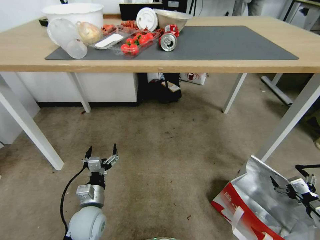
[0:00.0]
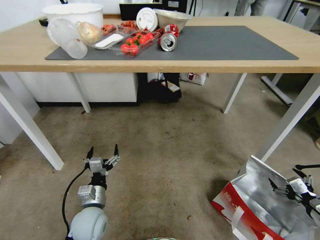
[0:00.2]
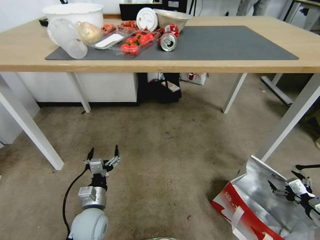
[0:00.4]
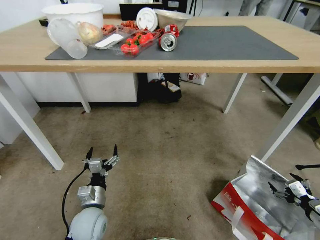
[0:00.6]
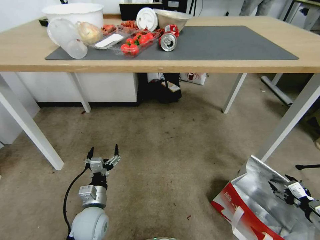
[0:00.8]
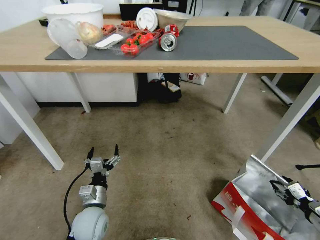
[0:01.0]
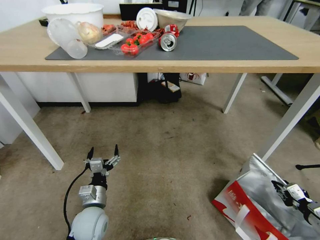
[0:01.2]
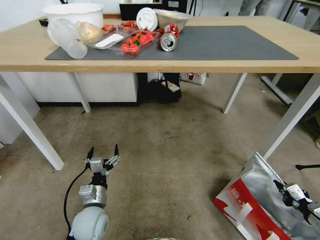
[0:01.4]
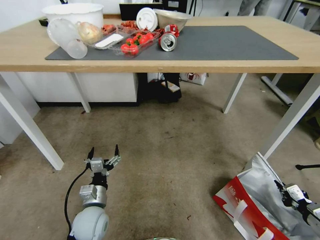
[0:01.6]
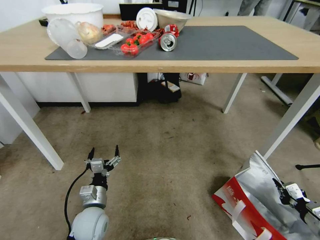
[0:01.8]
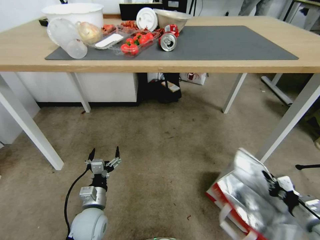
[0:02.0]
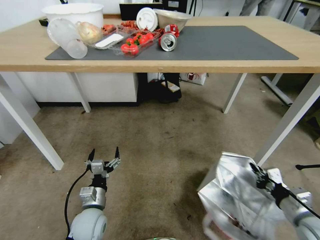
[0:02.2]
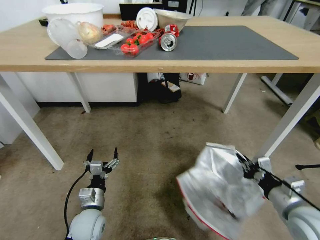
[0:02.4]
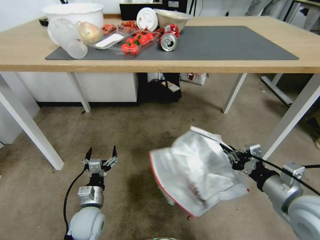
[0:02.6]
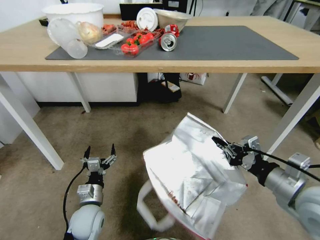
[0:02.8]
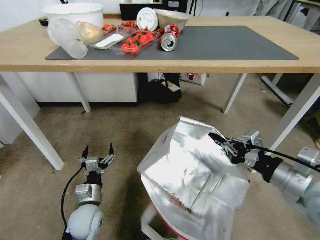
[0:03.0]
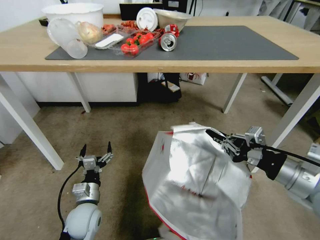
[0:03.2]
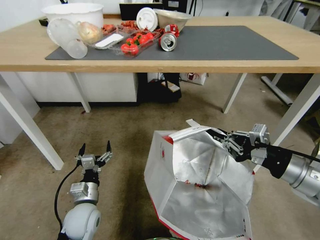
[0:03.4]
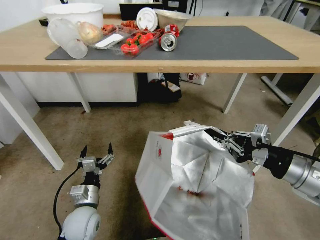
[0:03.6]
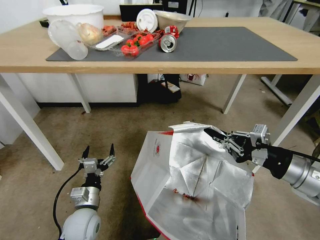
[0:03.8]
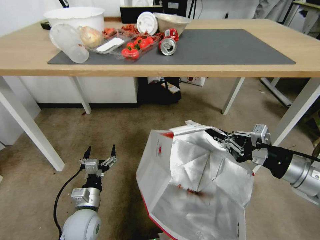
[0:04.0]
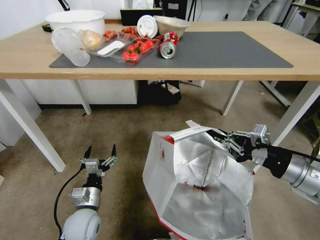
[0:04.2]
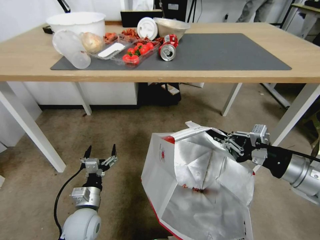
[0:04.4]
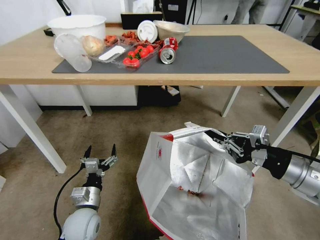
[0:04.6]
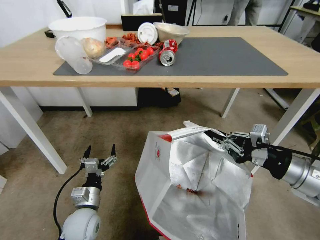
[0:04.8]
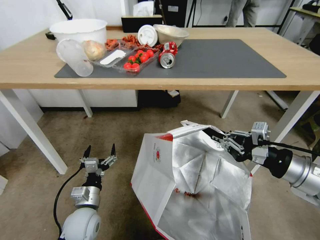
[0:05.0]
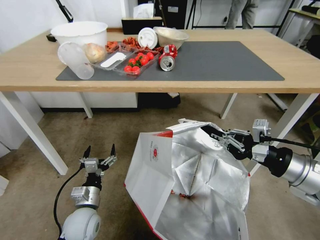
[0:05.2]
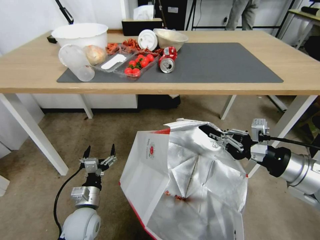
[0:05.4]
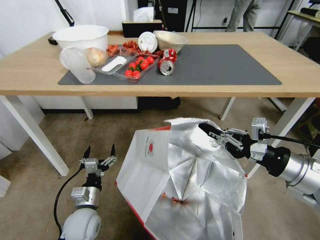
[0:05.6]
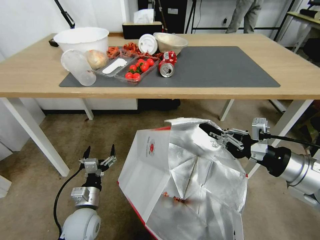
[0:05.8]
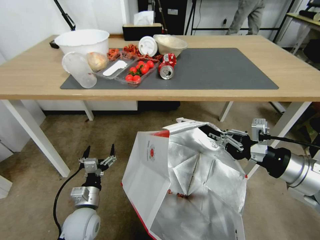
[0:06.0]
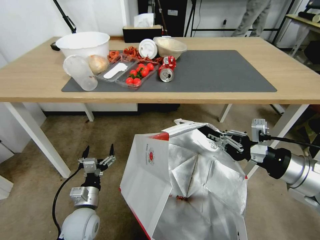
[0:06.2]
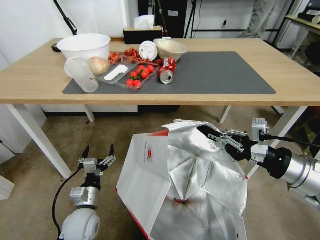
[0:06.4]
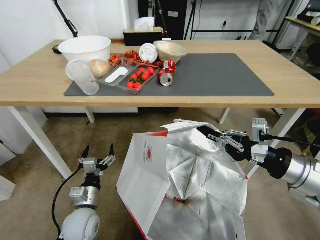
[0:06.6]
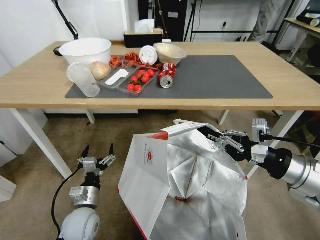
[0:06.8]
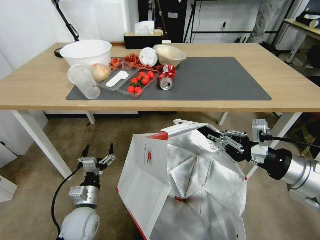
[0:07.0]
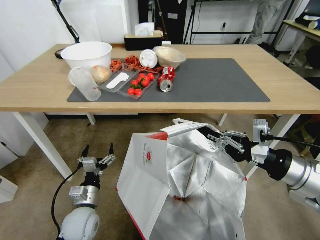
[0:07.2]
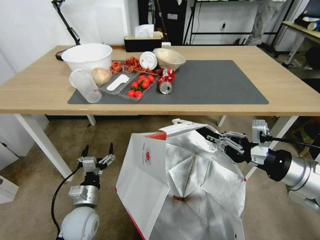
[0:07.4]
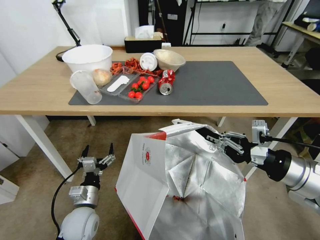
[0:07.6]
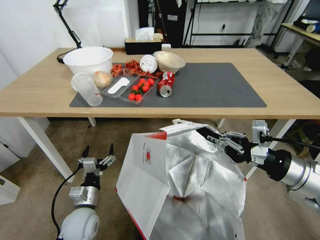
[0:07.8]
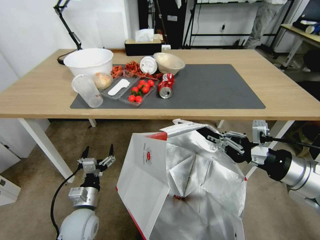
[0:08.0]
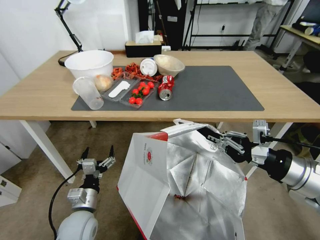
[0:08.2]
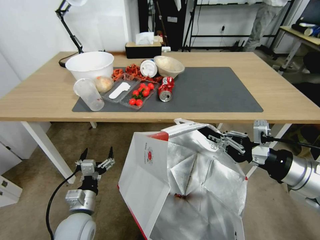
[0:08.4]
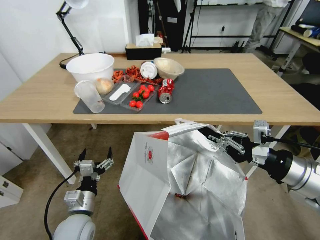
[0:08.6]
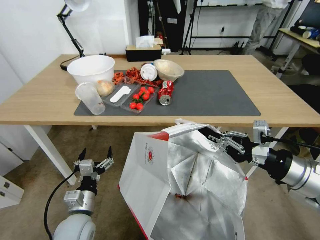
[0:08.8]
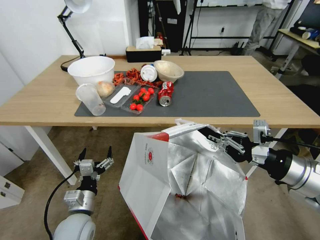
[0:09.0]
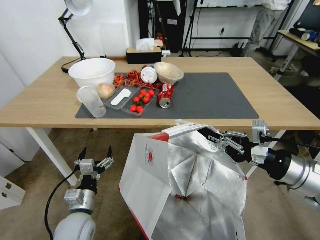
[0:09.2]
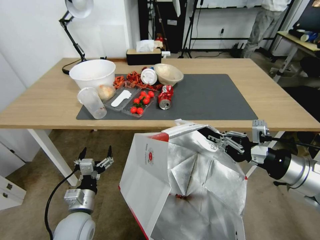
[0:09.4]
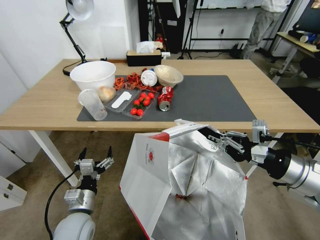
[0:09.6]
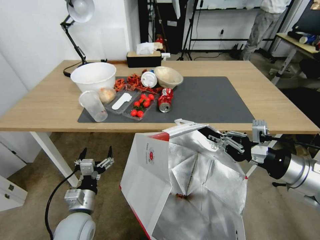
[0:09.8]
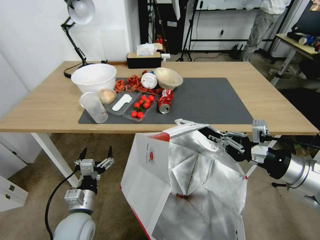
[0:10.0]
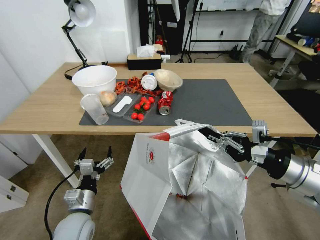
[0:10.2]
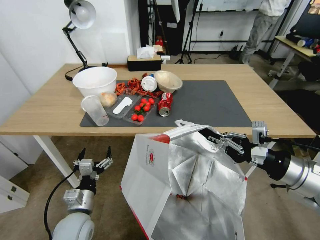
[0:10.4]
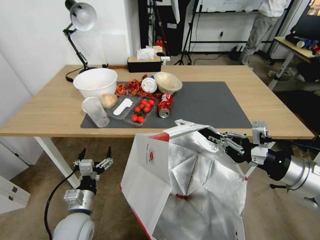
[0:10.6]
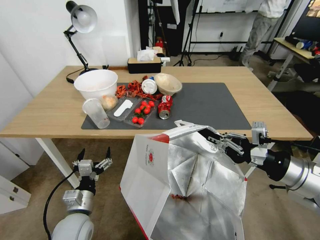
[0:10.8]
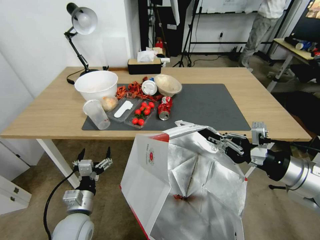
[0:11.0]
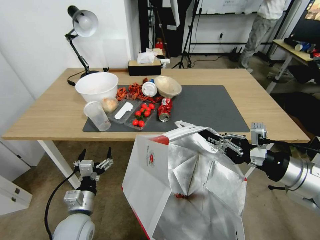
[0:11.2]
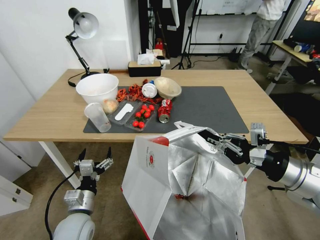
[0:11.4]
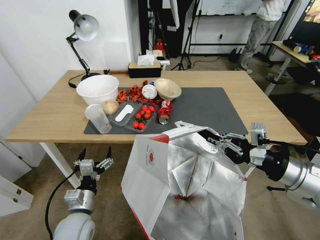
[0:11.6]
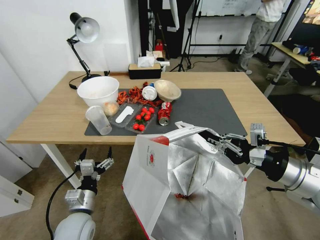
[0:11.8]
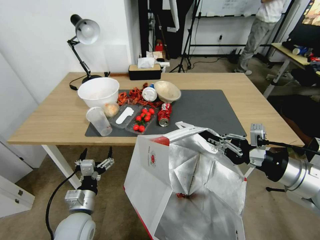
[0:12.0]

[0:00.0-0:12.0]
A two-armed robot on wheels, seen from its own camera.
Task of the whole recording: Pick up the food delivery bag from the floor and place it on the table.
0:00.0 to 0:01.6: The right gripper closes up.
0:01.6 to 0:03.0: The right gripper goes roughly 30 cm upward and to the left.

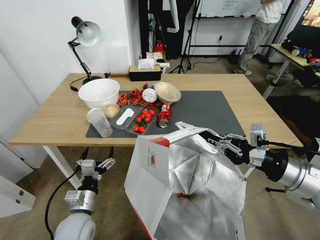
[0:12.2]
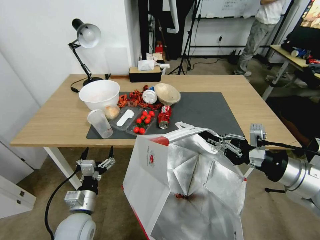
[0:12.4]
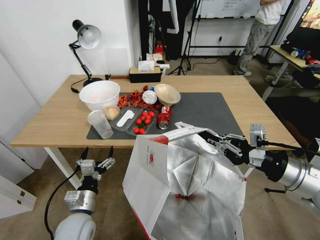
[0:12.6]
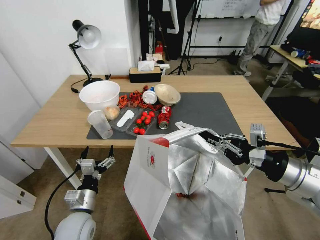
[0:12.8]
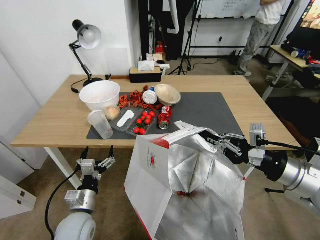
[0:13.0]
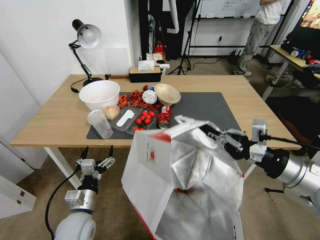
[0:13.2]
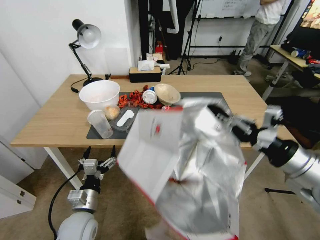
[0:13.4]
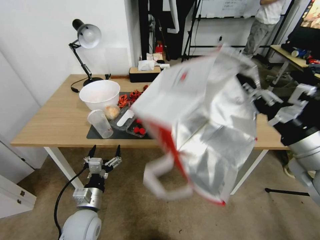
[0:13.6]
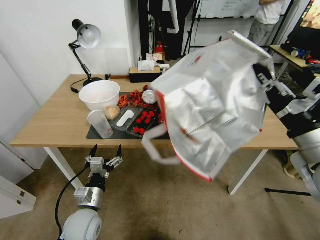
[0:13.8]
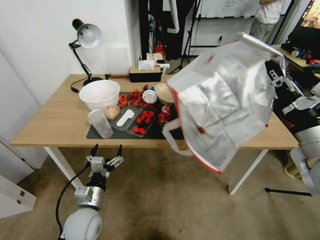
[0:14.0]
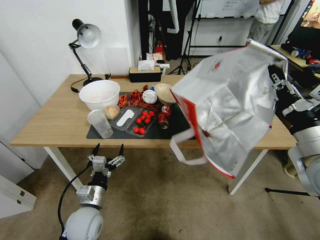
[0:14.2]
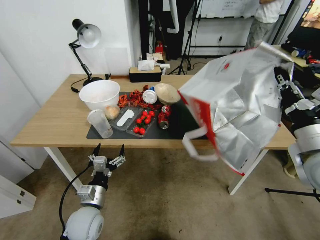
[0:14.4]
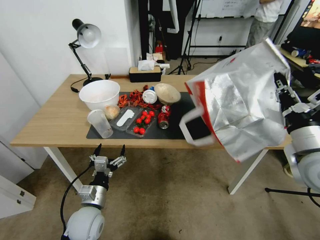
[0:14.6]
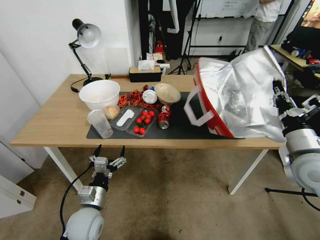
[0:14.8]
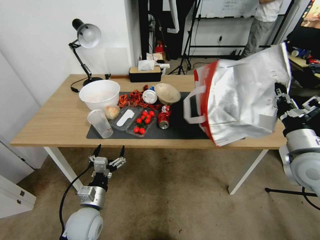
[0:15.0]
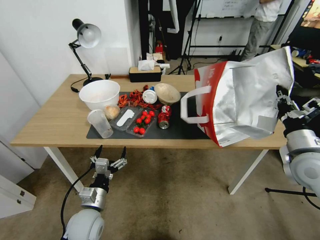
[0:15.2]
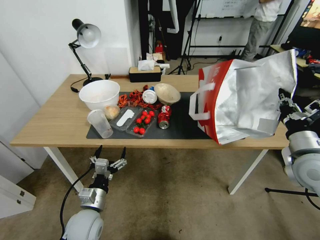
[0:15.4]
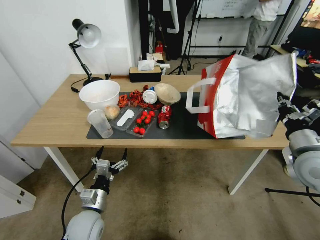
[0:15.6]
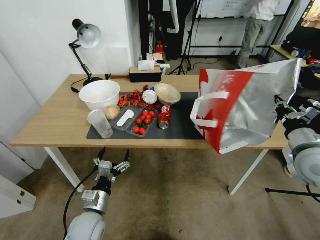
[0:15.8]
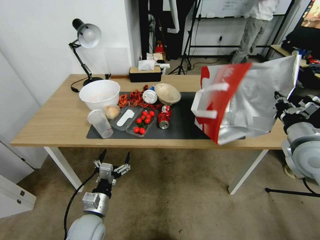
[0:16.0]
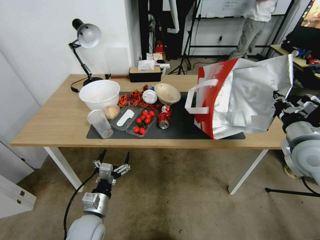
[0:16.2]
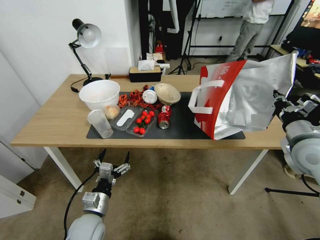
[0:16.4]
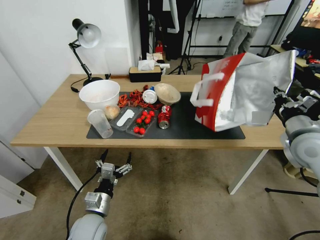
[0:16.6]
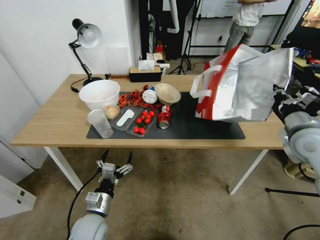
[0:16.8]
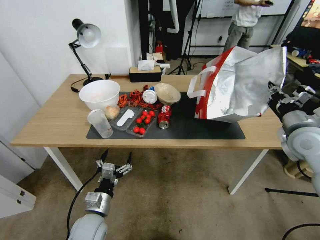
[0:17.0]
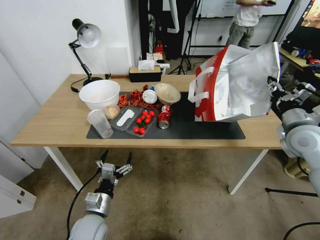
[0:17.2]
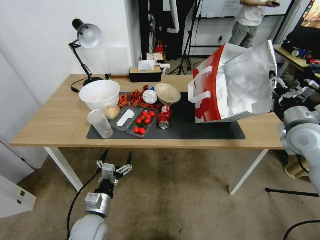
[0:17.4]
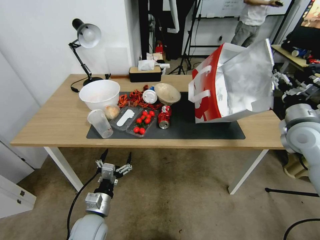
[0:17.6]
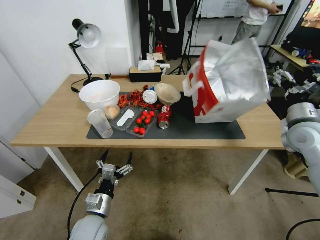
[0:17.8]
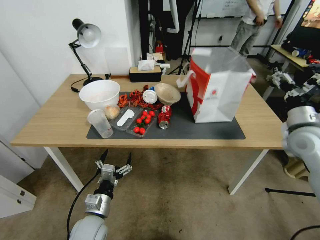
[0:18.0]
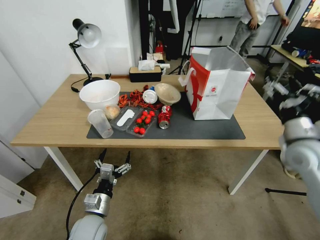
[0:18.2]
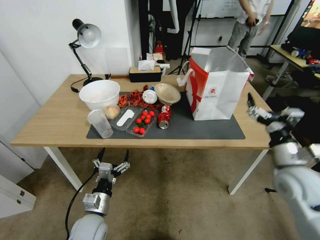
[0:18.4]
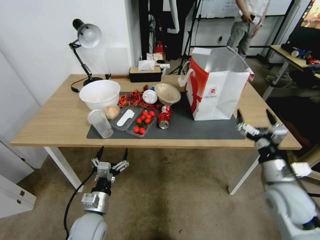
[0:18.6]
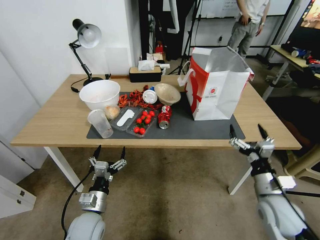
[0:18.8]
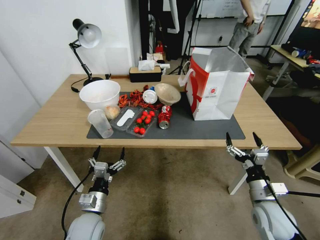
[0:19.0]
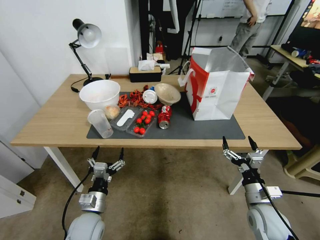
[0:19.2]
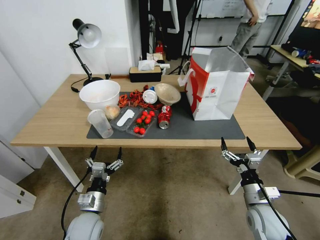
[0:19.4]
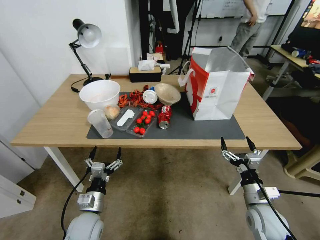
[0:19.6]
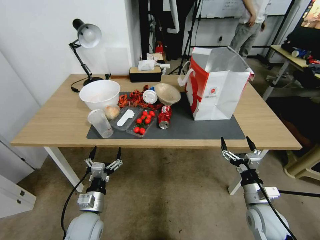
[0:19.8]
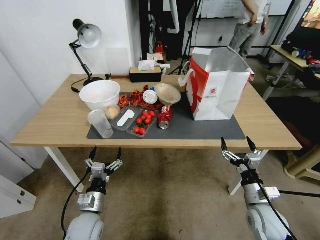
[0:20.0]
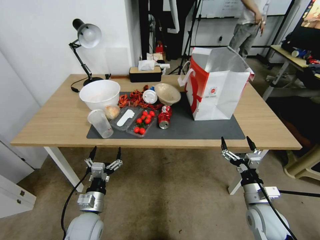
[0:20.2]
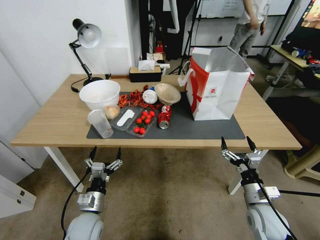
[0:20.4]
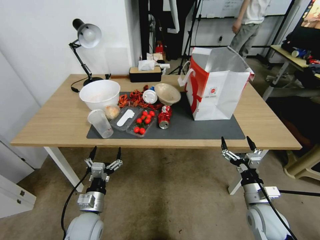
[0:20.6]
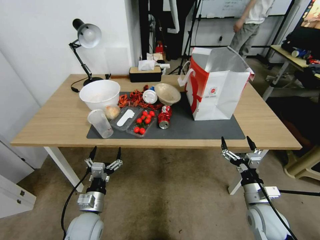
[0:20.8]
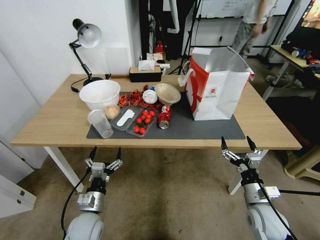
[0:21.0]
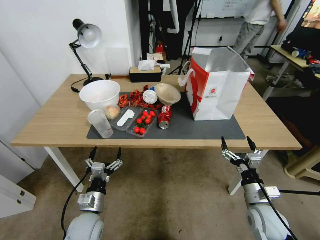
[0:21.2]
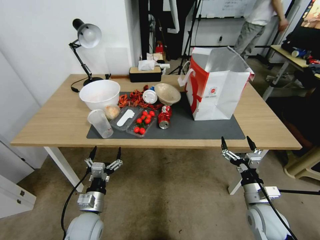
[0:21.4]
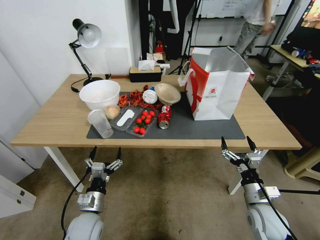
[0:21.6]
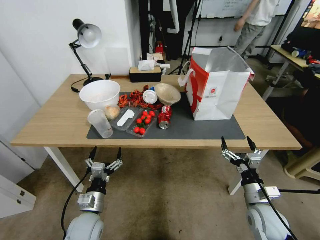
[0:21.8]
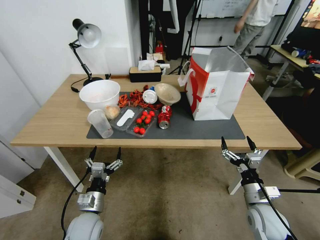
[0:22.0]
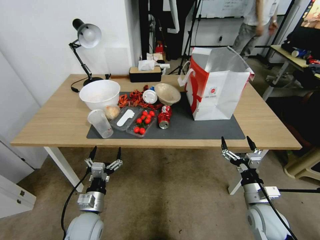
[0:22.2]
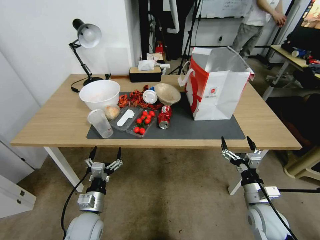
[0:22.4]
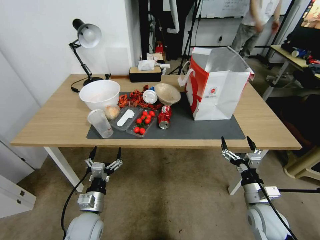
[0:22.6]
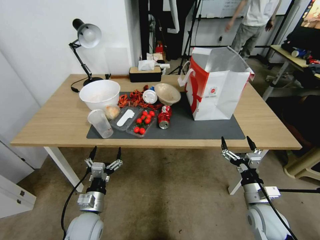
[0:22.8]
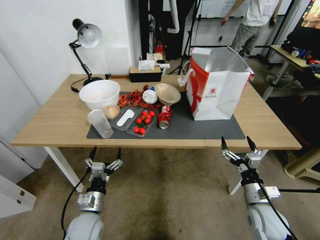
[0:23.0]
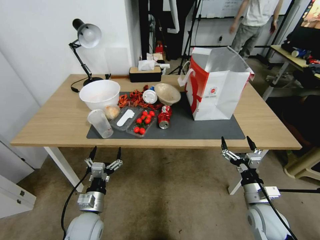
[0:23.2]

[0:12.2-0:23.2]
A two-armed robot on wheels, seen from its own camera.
Task of the whole recording: Pick up the food delivery bag from the floor and place it on the table.
0:13.8 to 0:15.4: The right gripper heads downward, forward and to the right, covering some 10 cm.
0:15.4 to 0:17.0: The right gripper travels forward by approximately 5 cm.
0:17.0 to 0:18.4: The right gripper moves backward and downward, about 10 cm, and opens.
0:18.4 to 0:20.0: The right gripper heads downward, covering roughly 15 cm.
0:20.0 to 0:23.2: Both grippers stay about where they are.
